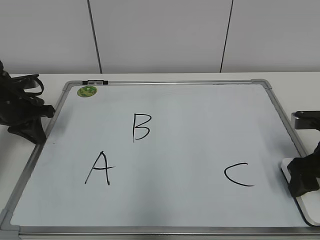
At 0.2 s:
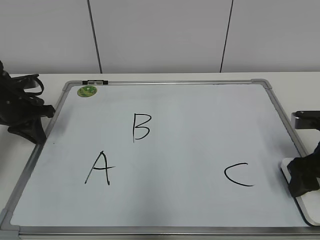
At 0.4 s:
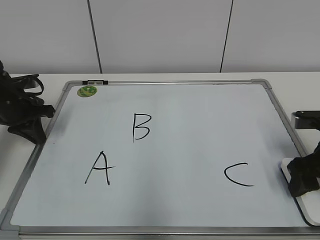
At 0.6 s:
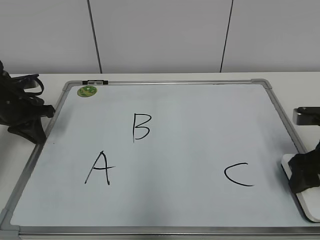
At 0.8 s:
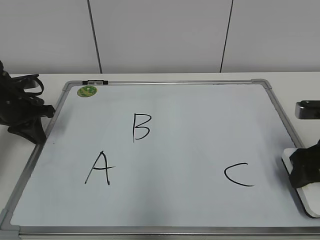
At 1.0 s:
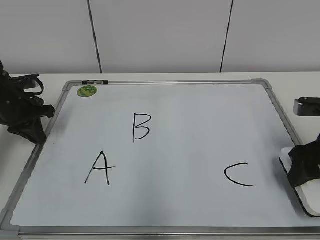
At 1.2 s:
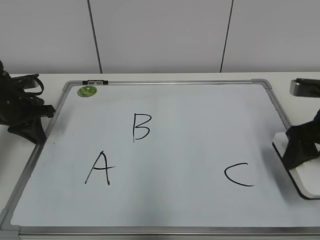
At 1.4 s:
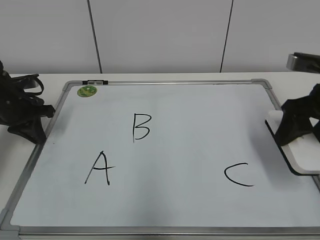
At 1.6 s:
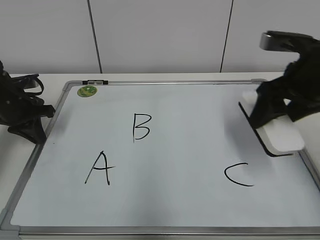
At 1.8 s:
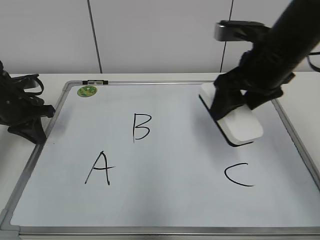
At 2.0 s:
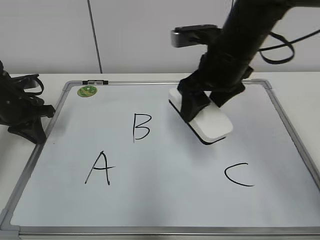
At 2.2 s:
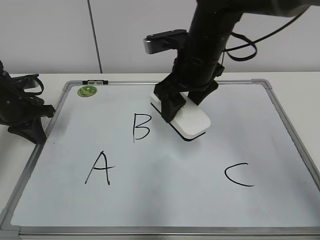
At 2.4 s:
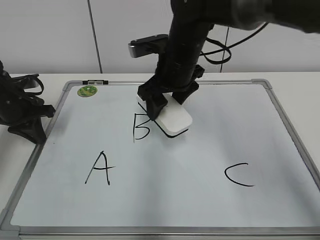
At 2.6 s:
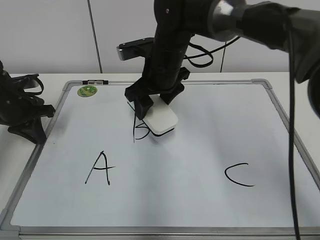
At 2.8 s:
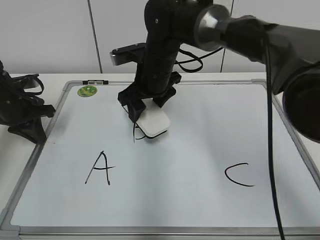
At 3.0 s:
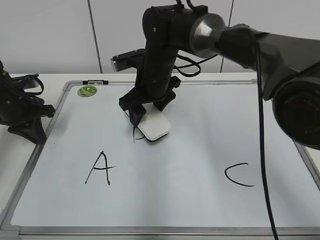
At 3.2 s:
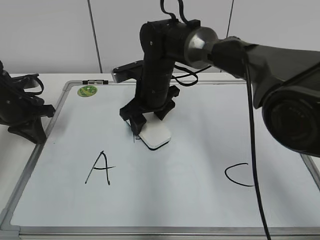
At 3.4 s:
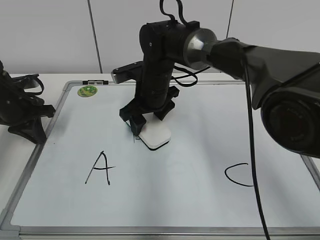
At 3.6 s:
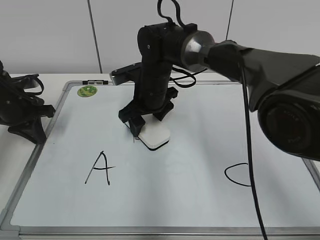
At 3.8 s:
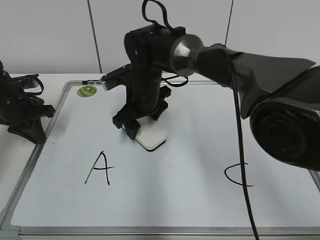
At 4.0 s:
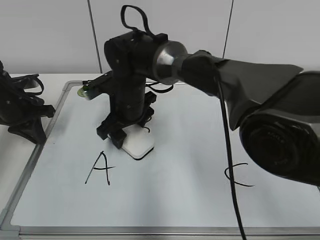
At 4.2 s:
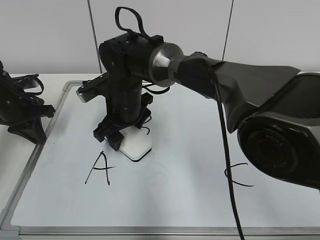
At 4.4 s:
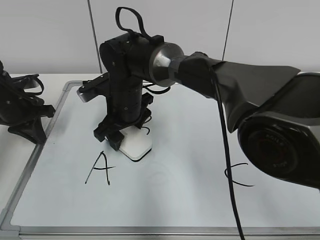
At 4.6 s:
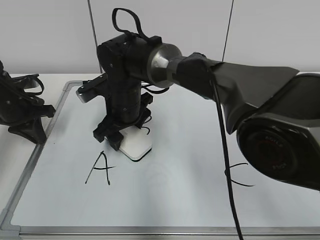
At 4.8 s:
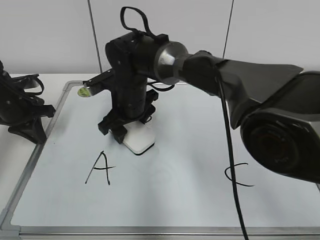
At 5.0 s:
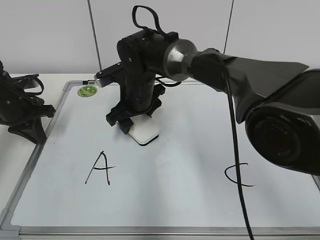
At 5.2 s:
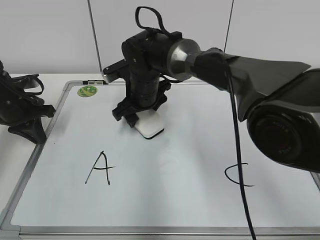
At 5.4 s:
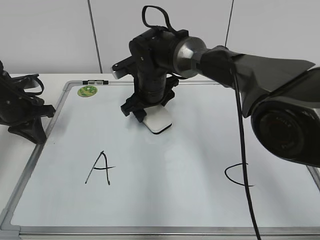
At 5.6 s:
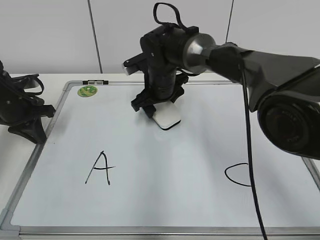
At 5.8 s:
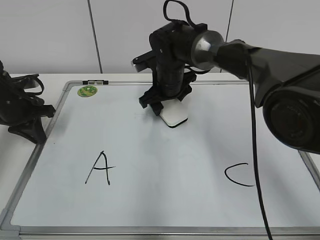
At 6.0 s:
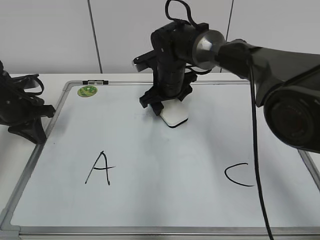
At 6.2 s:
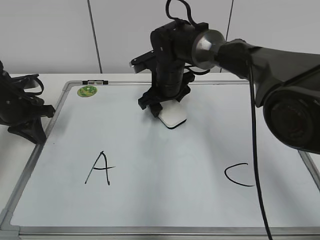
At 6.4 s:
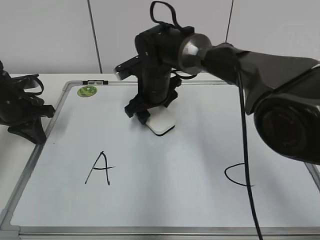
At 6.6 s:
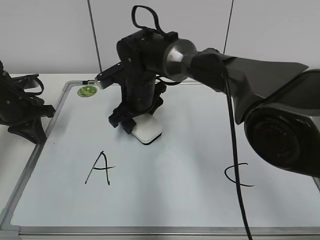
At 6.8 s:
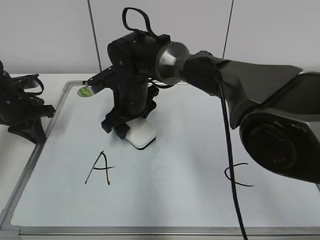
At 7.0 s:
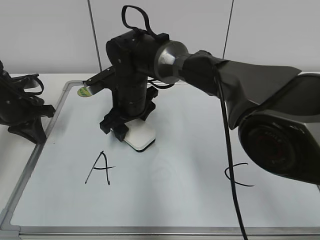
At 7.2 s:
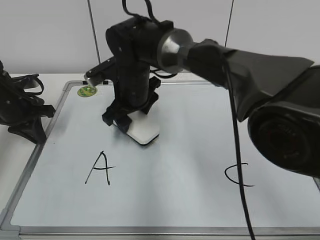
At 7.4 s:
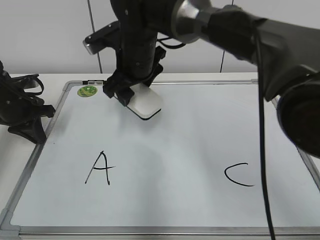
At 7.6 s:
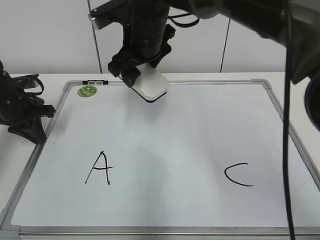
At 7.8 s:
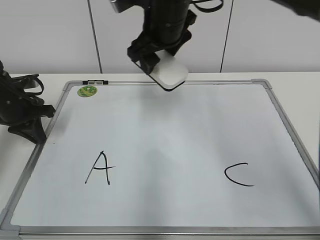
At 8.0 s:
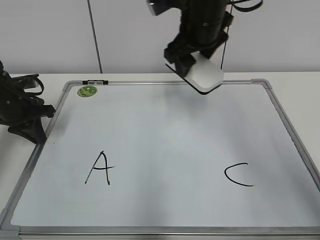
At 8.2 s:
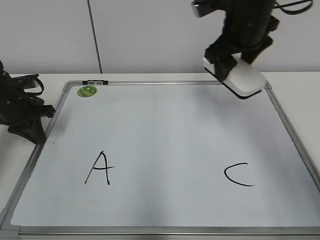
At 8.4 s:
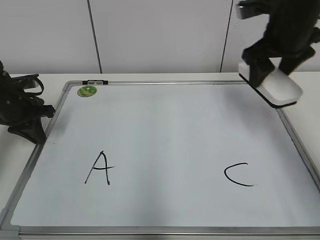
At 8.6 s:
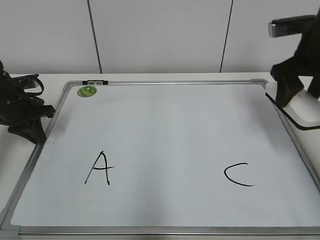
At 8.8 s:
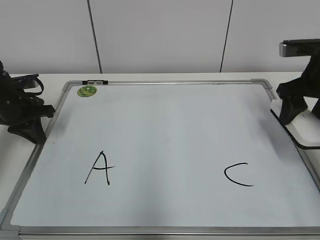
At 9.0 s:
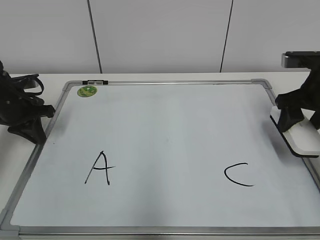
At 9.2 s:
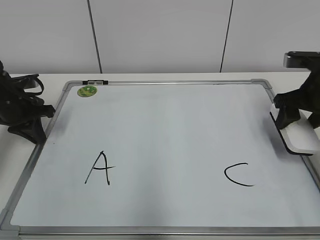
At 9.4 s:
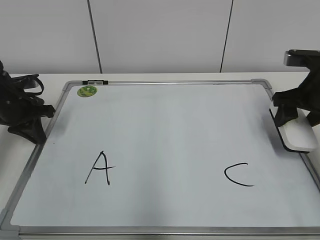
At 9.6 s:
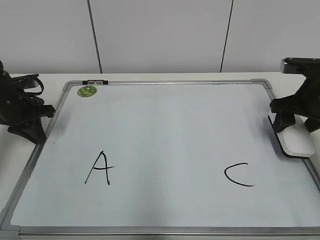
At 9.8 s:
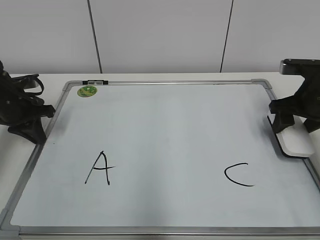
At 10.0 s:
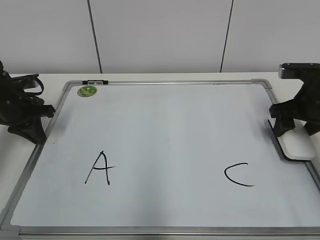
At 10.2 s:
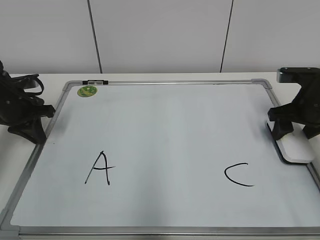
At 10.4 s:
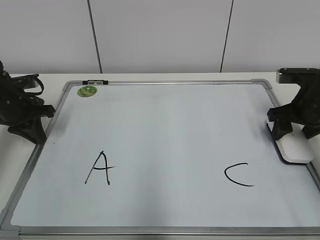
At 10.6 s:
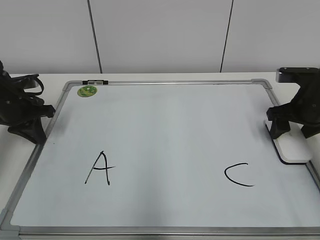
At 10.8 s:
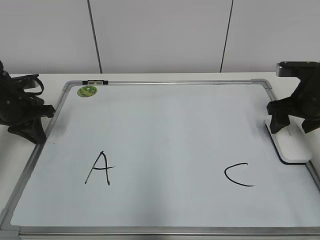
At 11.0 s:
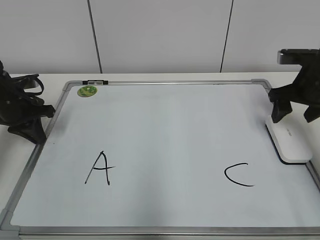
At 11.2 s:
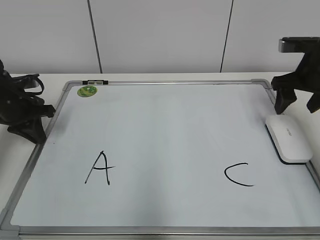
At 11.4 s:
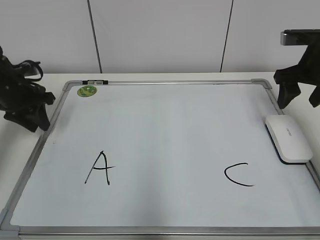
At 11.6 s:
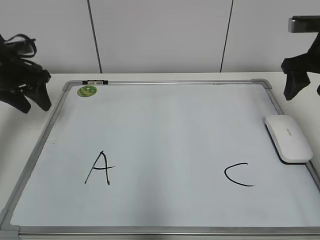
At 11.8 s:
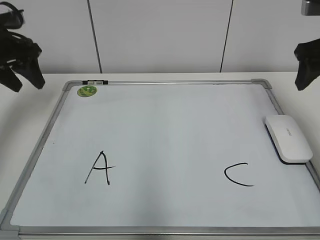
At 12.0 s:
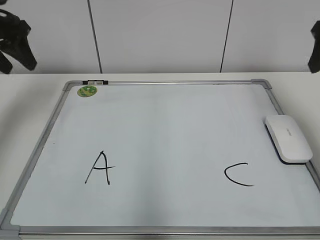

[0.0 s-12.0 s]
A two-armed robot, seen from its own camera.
Task of the whole recording: pick up the eraser on the blackboard and erase the letter "B".
Step, 0.6 to 6.8 s: Erase the letter B with your right hand.
Step, 7.2 to 10.6 s: Put down the eraser with your right hand.
0.0 to 1.6 s: The right gripper is displaced upward and to the left by some 10 cm.
1.6 to 3.0 s: The right gripper moves to the left and forward, roughly 25 cm.
3.0 to 4.4 s: The right gripper is displaced to the left by approximately 5 cm.
4.4 to 6.0 s: The right gripper shifts some 10 cm to the right and forward.
6.0 to 7.6 s: The right gripper moves upward and backward, approximately 15 cm.
7.6 to 9.0 s: The right gripper heads to the right, covering roughly 30 cm.
9.0 to 10.4 s: The right gripper moves approximately 5 cm.
10.4 to 12.0 s: Both grippers move upward, some 15 cm. The right gripper opens; the left gripper opens up.

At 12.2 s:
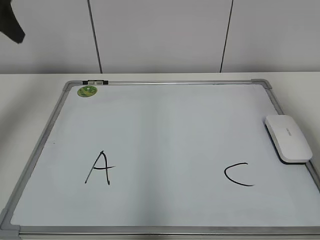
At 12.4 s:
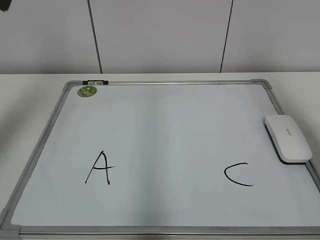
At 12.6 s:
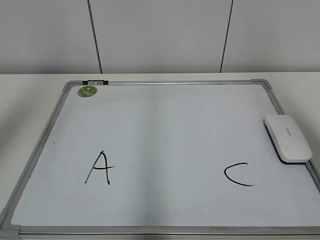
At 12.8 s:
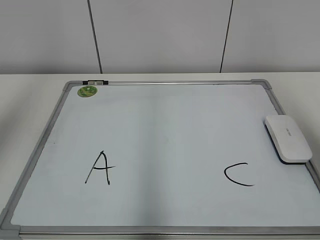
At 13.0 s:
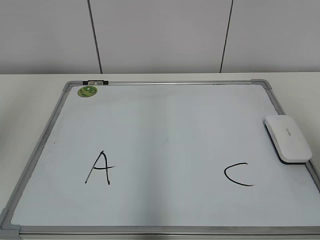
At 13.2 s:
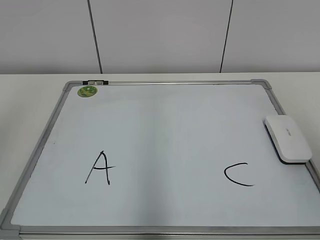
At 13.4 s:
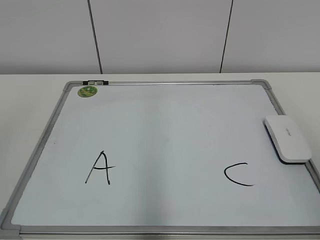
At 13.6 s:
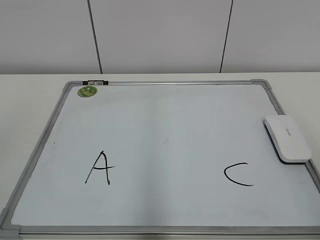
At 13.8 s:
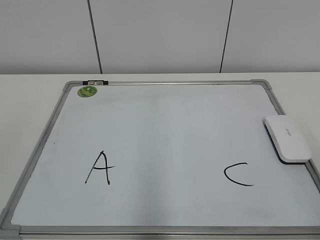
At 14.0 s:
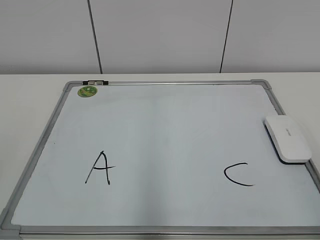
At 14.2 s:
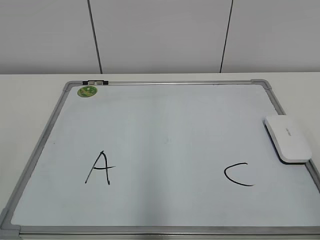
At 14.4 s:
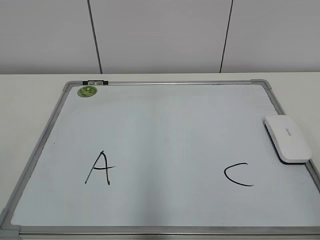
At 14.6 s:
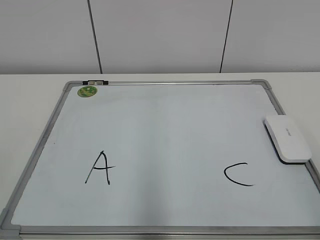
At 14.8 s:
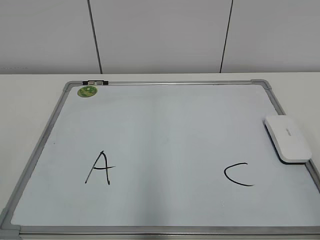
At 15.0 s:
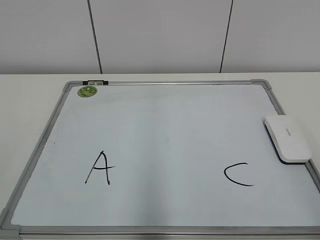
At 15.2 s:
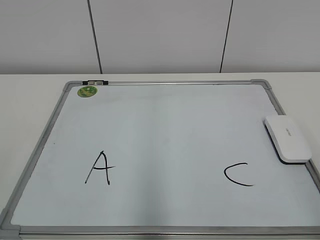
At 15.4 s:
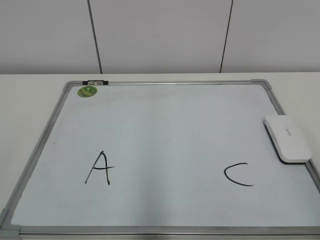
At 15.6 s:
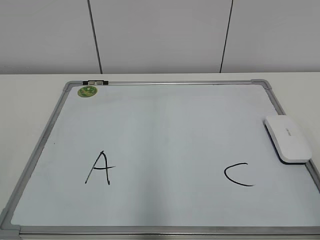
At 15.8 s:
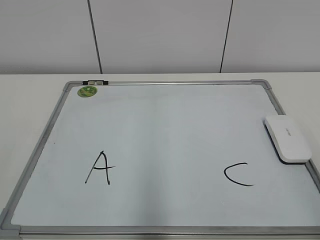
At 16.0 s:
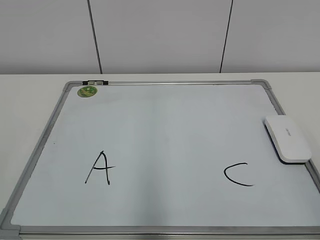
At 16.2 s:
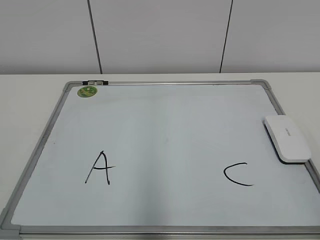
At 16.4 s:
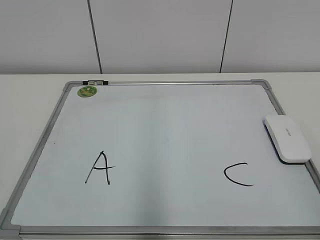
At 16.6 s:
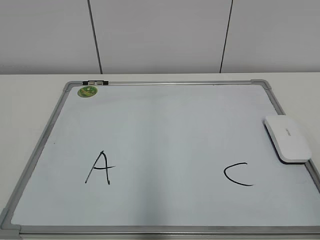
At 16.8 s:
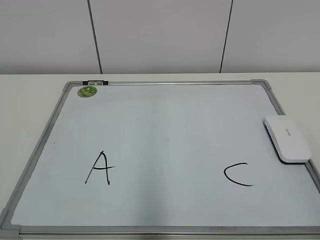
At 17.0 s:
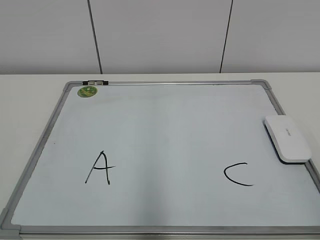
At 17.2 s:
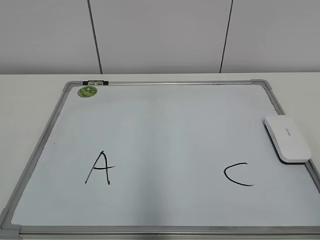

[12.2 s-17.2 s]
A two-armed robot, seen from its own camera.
Task of the whole recording: pick up the eraser on the blackboard and erase the letter "B".
12.2 to 13.8 s: Both grippers move backward, about 30 cm.

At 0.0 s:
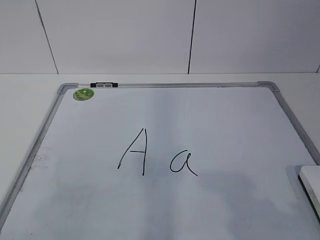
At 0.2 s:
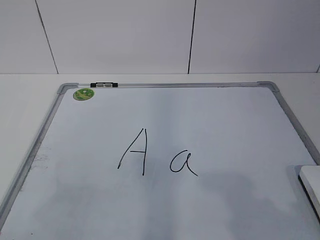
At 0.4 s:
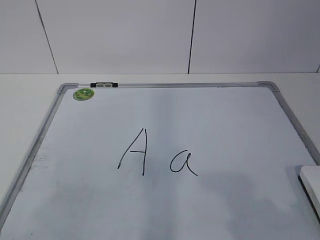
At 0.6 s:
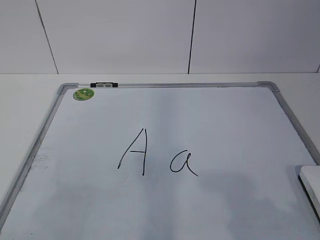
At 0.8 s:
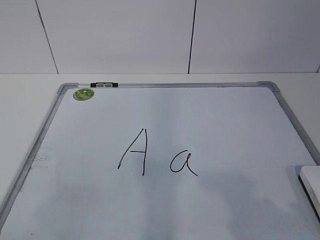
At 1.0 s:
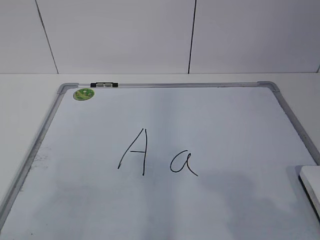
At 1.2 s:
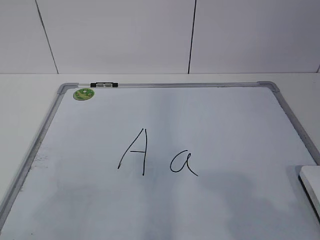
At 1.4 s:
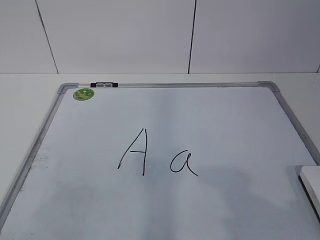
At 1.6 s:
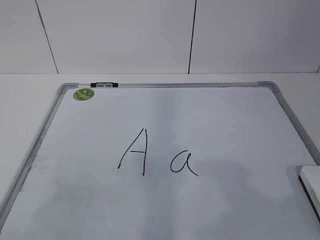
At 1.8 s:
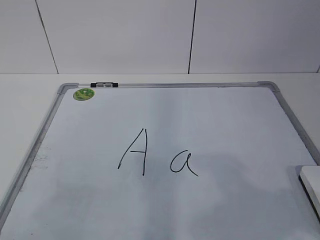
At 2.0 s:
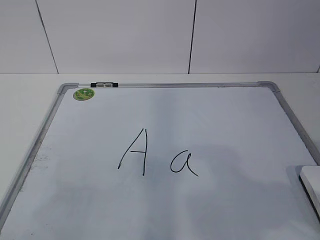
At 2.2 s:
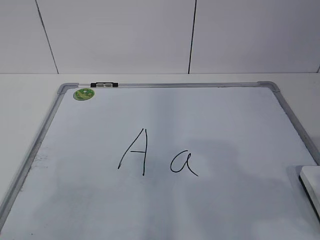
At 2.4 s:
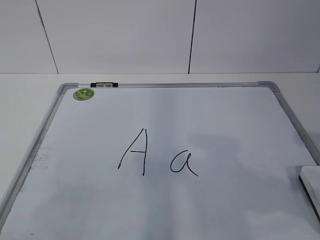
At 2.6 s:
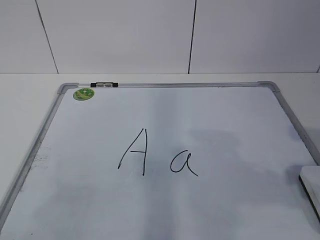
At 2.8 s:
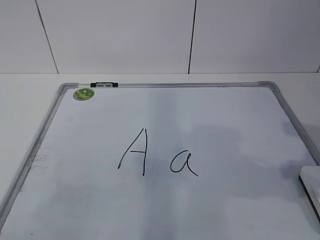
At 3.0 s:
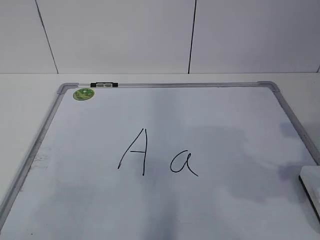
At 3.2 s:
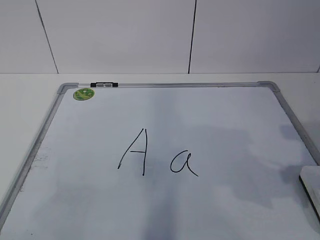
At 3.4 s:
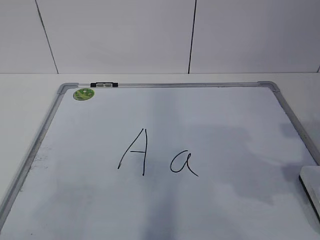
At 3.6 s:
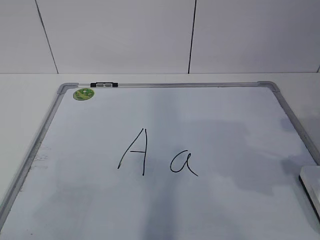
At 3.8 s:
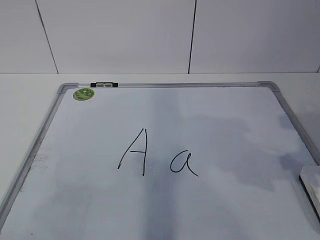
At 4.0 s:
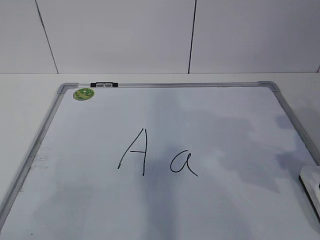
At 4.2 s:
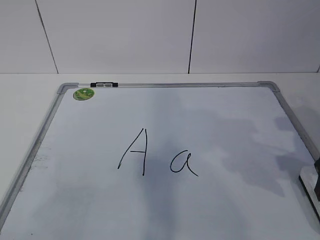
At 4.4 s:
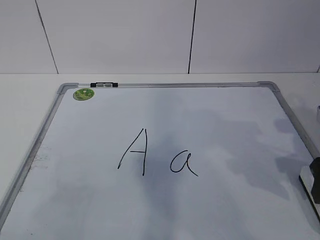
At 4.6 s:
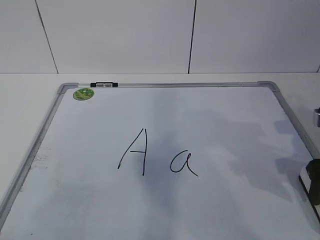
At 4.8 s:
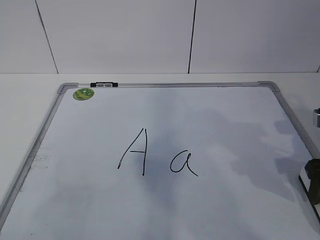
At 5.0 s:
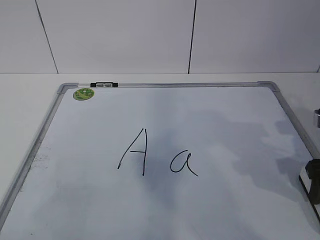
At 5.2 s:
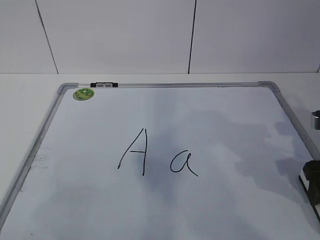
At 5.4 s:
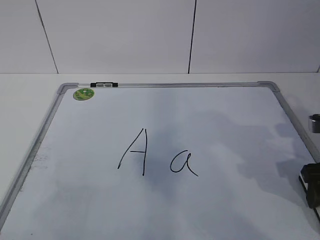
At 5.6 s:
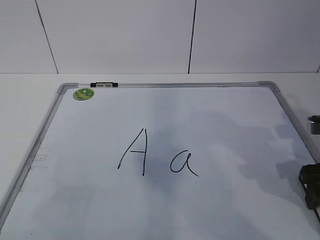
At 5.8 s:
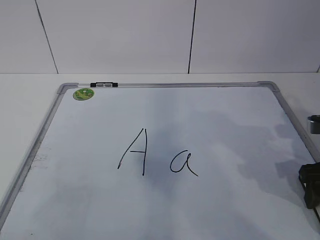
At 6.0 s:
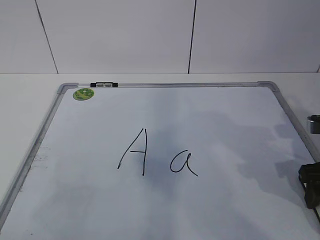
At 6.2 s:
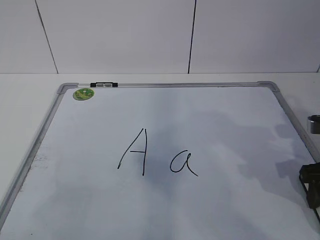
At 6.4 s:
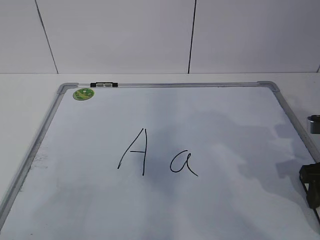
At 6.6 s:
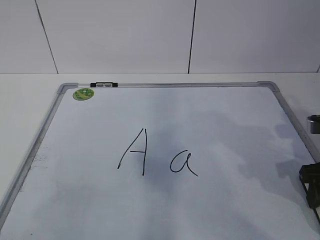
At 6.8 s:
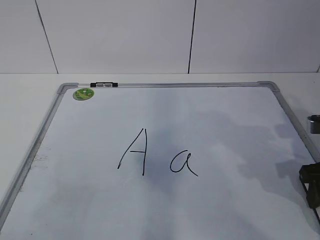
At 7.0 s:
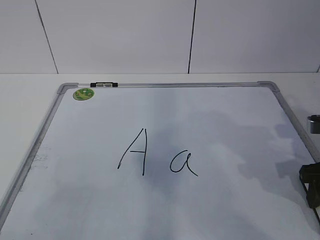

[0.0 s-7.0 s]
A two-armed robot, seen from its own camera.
Task of the whole recording: pick up the eraser on the blackboard and erase the letter "a".
4.2 to 5.6 s: The grippers make only small movements.
